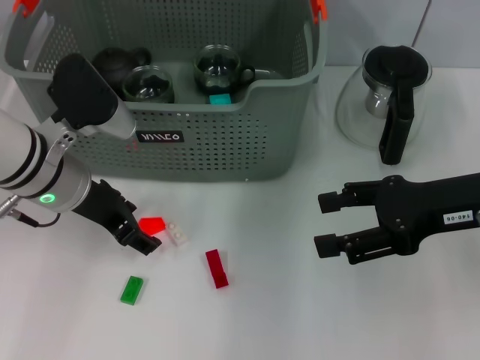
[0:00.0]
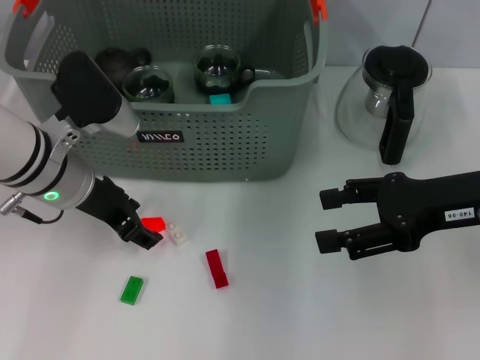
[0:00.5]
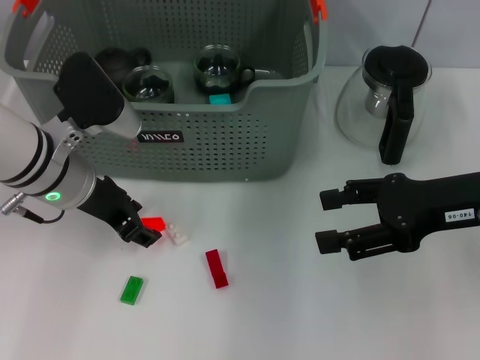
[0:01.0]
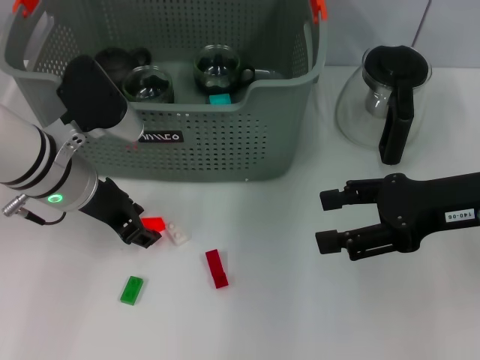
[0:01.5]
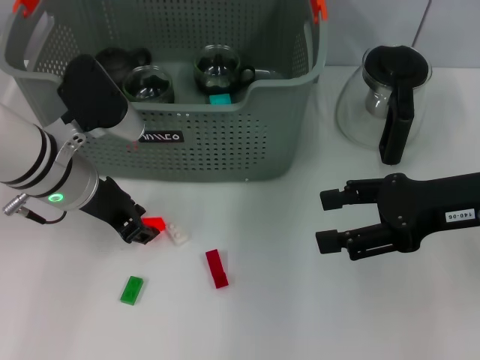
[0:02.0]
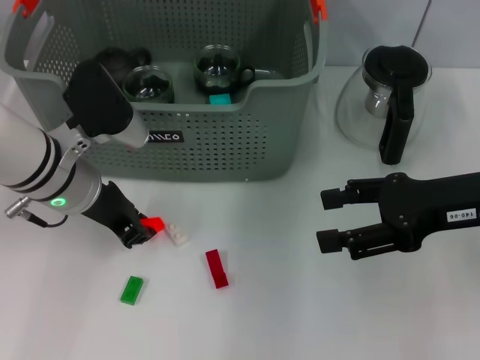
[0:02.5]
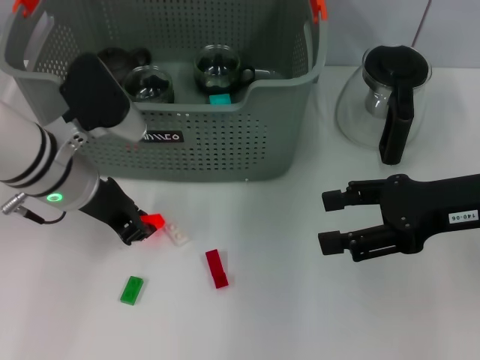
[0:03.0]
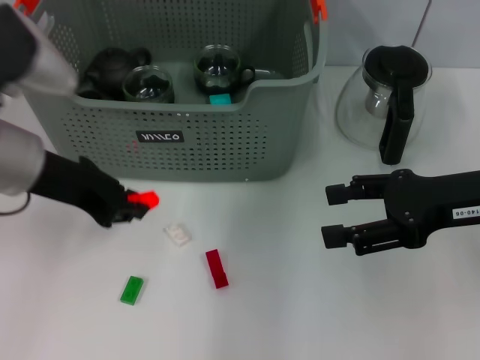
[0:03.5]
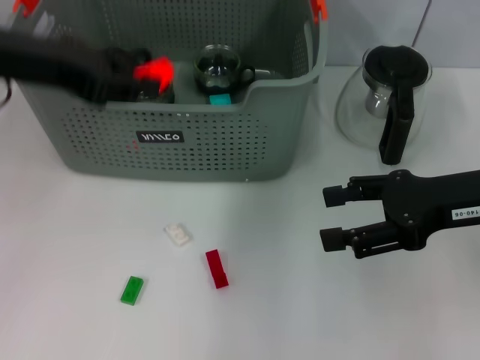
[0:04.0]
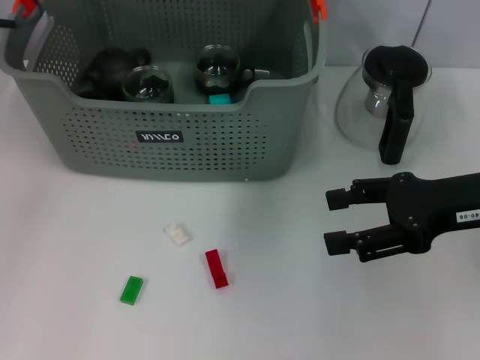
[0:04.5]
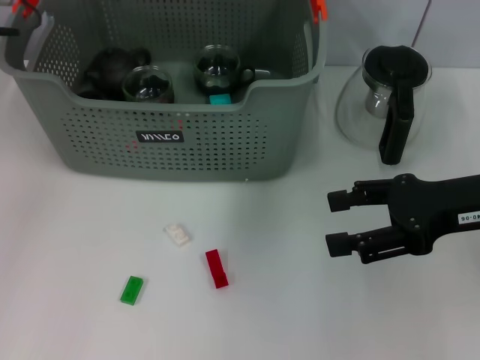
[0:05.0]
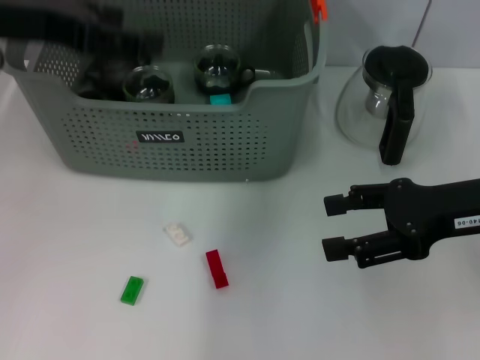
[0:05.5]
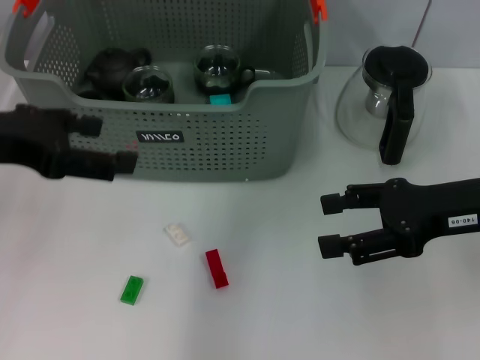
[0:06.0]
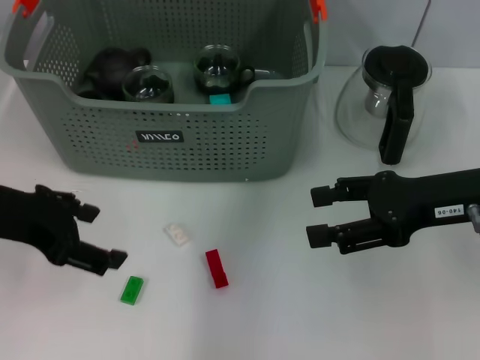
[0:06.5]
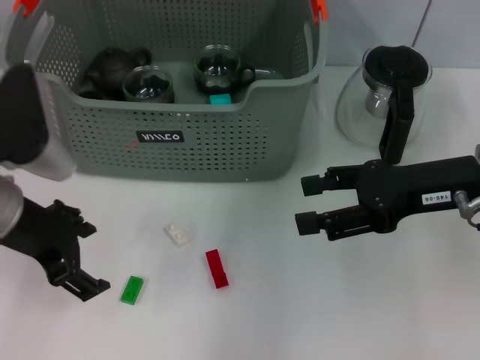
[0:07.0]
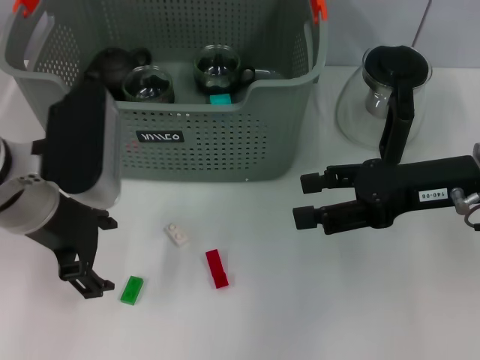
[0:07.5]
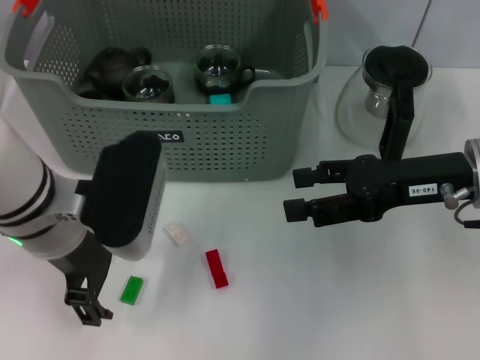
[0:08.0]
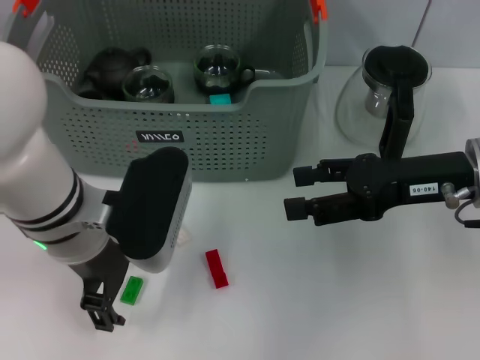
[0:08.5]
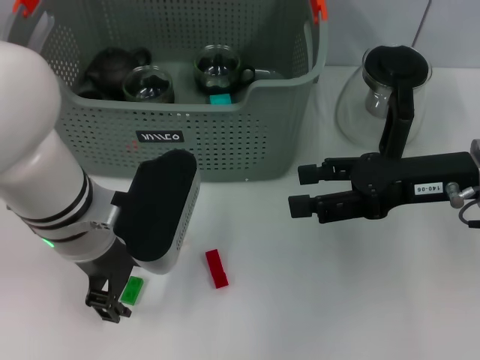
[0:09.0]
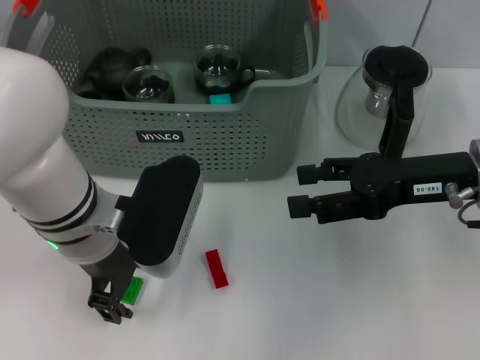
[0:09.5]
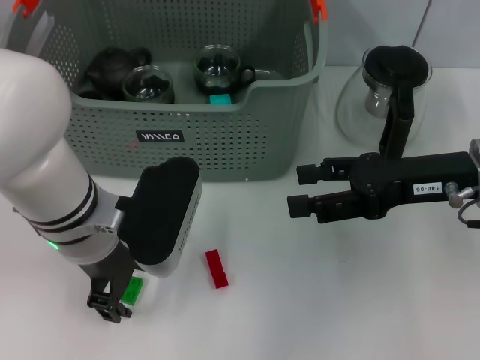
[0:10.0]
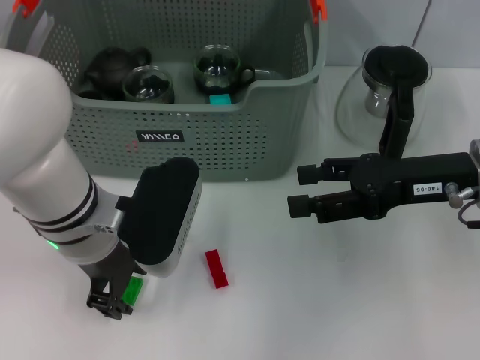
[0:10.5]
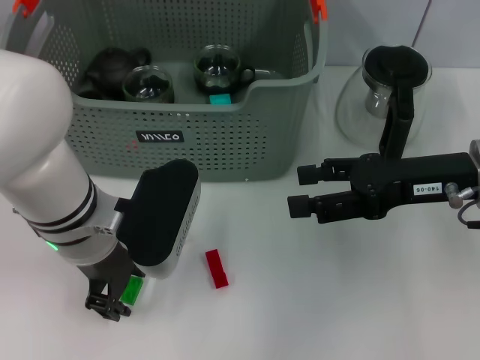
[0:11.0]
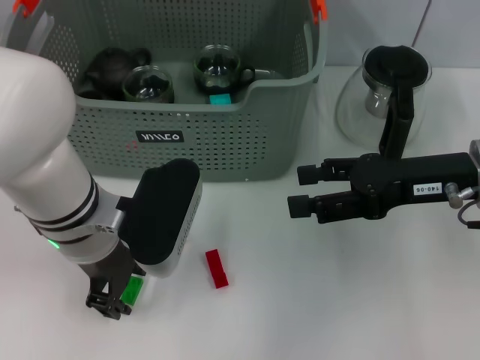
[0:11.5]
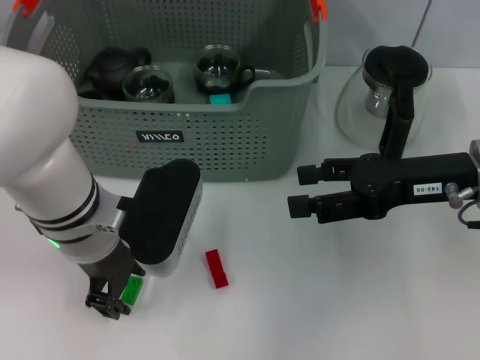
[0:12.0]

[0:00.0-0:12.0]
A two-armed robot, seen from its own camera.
Task of the whole recording: pick up the teacup on the table and place it into the storage bin, pick up the block on the table and place it into the storage bin.
Step, 0:00.0 to 0:02.5: Grasp the orange block with left gripper.
Step, 0:03.0 to 0:04.5: Place the orange block in the storage box with left gripper.
0:00.0 to 0:02.0: Both grippers stay about where they are.
0:02.0 to 0:04.0: The left gripper goes some 15 cm upward, and closes its fingers.
0:04.0 to 0:06.0: The left gripper moves backward, approximately 5 cm, and opens up.
0:06.0 to 0:08.0: The left gripper moves to the right and downward, approximately 15 cm.
0:08.0 to 0:10.0: There are only small adjustments of the grippers.
0:10.0 to 0:12.0: Both grippers stay about where they are.

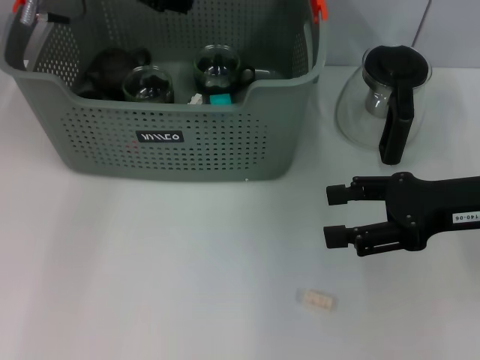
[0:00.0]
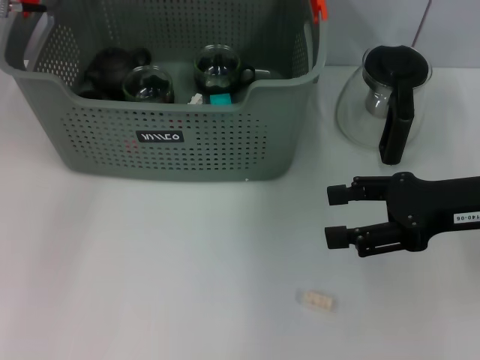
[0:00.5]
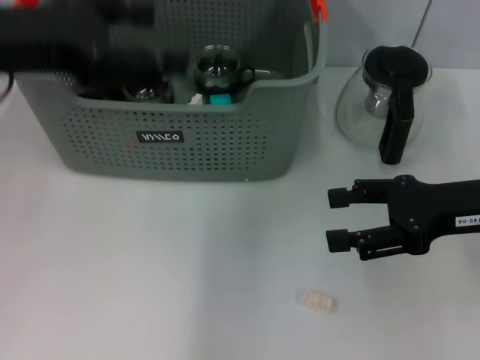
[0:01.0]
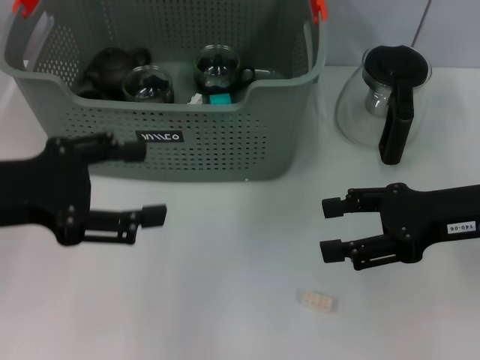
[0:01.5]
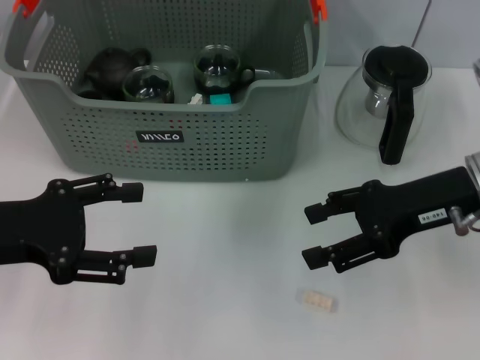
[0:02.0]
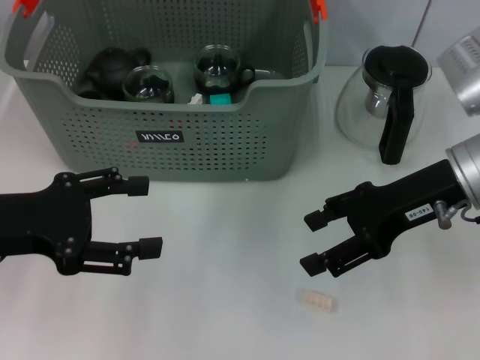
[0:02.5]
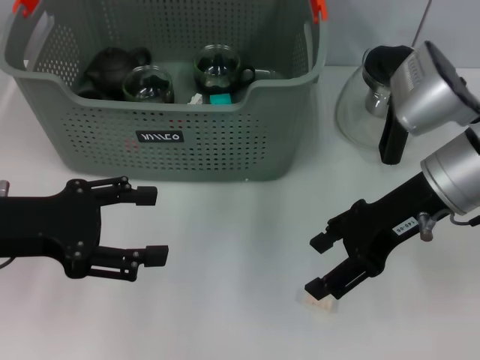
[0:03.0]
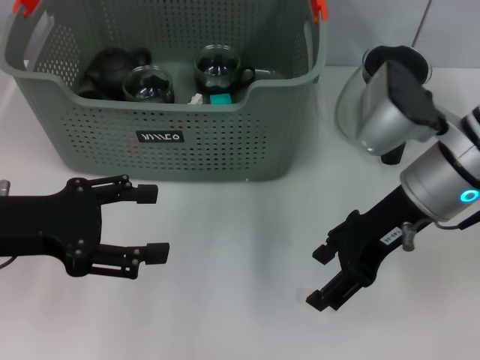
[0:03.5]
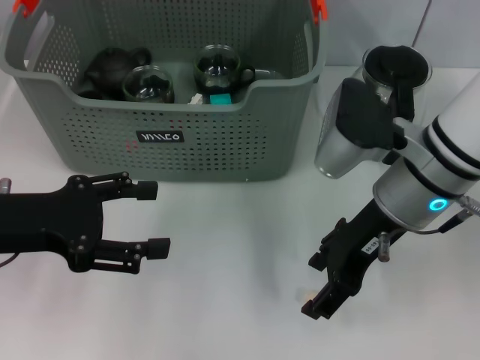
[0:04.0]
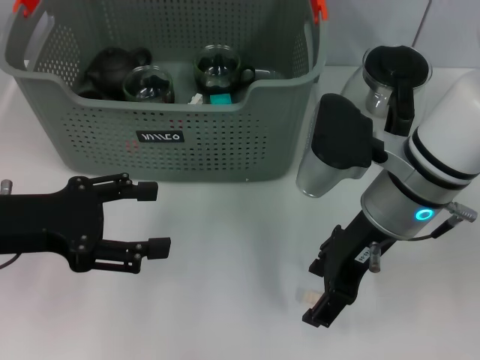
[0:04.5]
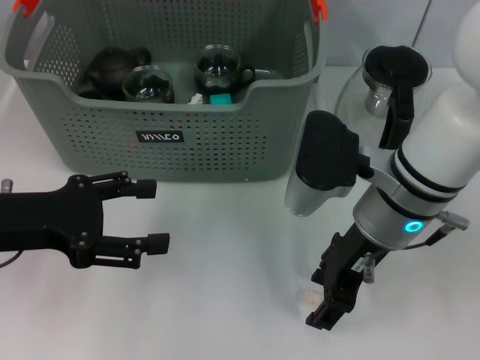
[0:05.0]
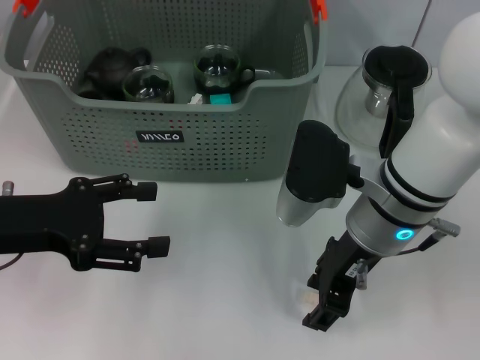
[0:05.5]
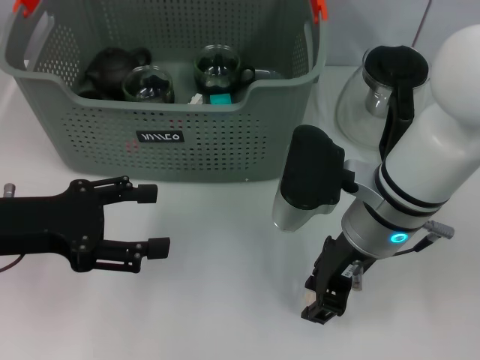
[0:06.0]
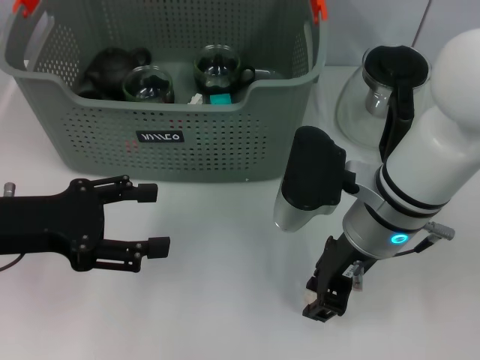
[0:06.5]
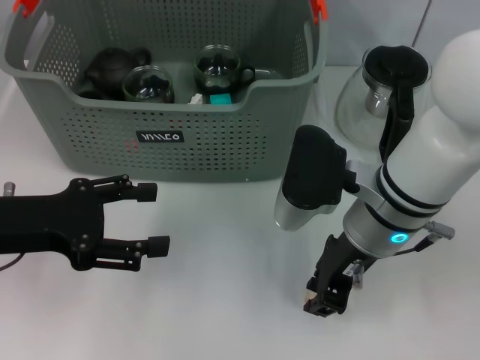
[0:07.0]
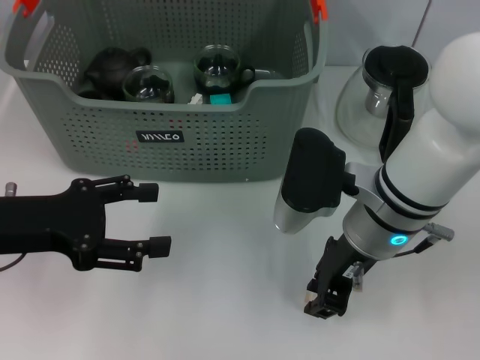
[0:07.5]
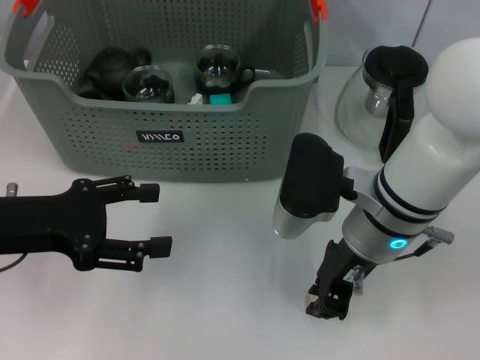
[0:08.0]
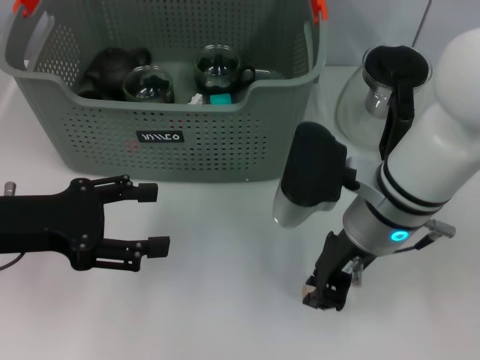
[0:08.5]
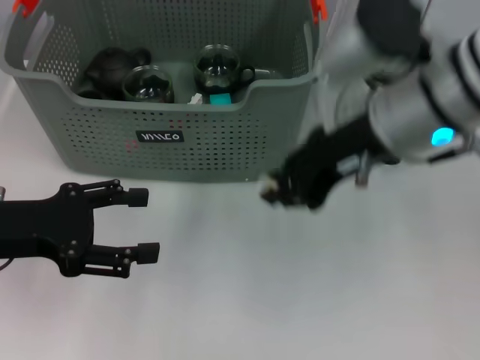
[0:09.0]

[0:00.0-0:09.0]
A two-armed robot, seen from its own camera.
Task of the whole recording: pick up the teacup on the table and place it into the storage bin, pick up the block on the table and place it into the storage bin.
Step, 0:00.5 to 0:08.0: Grasp the white block with right gripper.
0:00.0 to 0:02.0: The left gripper moves backward, to the left and downward, roughly 25 cm.
0:02.0 to 0:04.5: The right gripper goes approximately 10 cm to the left.
0:04.5 to 0:07.0: The right gripper closes its fingers.
0:07.0 to 0:09.0: The right gripper goes about 10 cm upward.

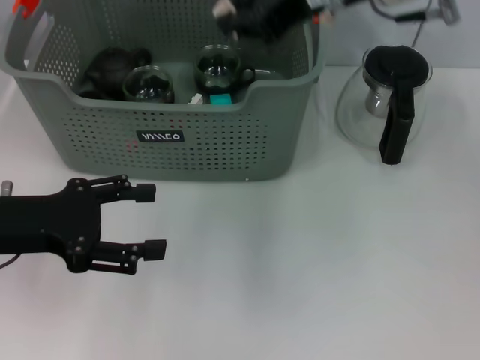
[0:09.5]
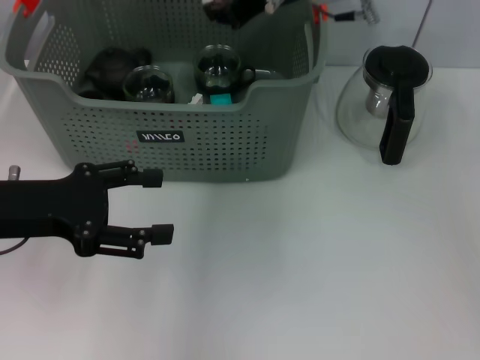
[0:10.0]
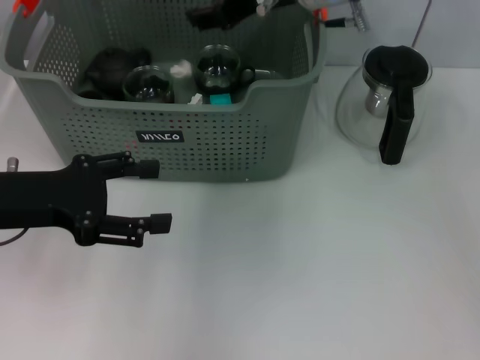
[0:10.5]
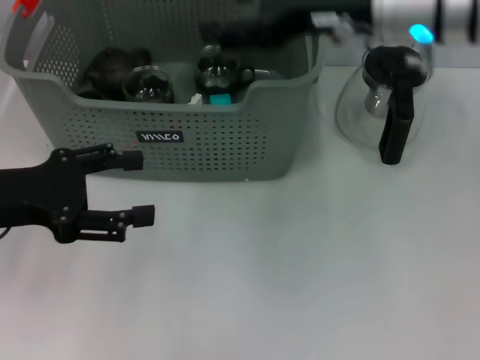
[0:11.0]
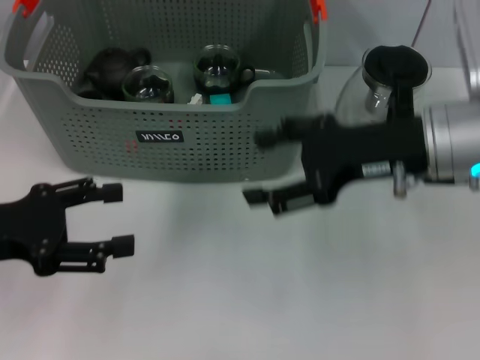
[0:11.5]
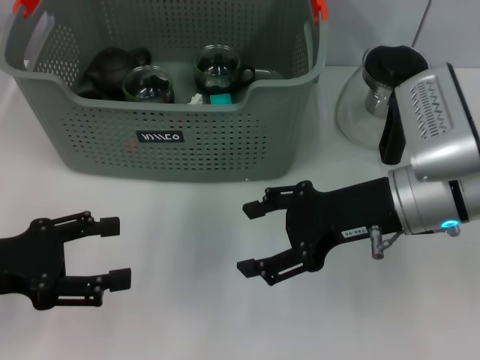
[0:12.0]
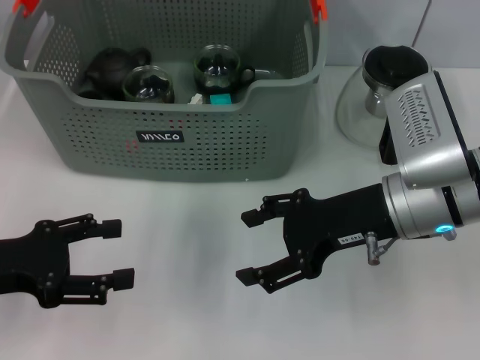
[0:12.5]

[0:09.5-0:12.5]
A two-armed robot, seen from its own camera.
Task of the whole recording: pick up the teacup on the table and place it into the storage bin, pick up the block on the table and place it into the storage bin.
0:09.5 to 0:11.0: The right gripper is displaced downward by some 5 cm, and opens its fingers.
0:11.0 to 0:12.5: The left gripper ends up approximately 5 cm from where it was. The right gripper moves downward and backward, roughly 15 cm.
